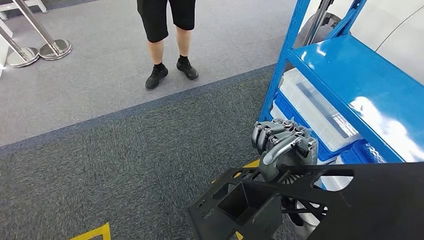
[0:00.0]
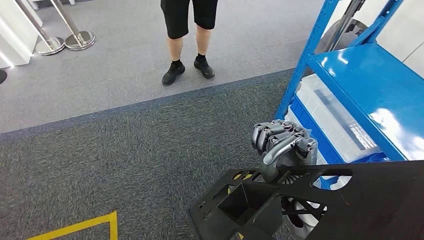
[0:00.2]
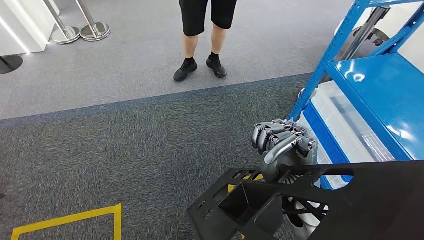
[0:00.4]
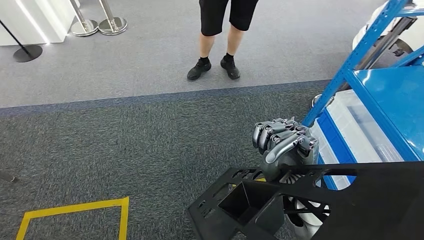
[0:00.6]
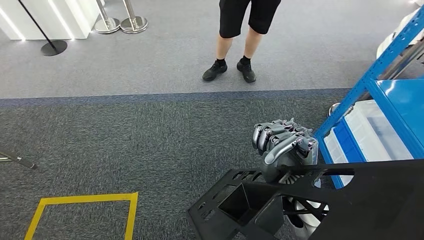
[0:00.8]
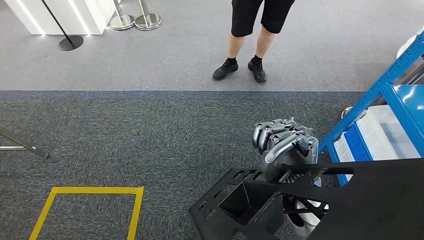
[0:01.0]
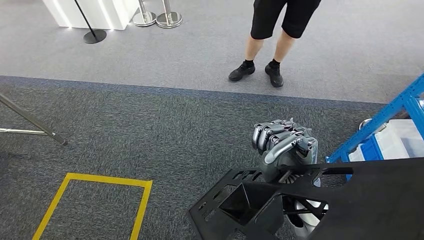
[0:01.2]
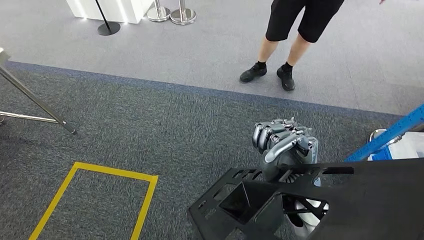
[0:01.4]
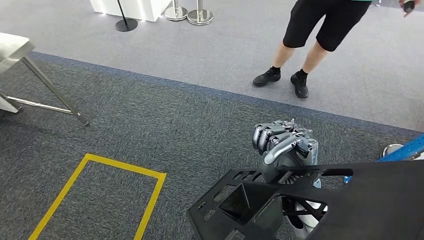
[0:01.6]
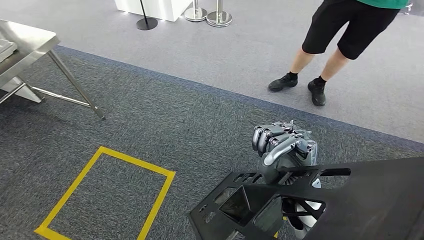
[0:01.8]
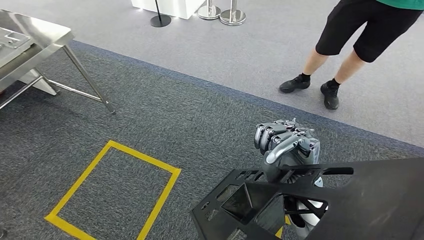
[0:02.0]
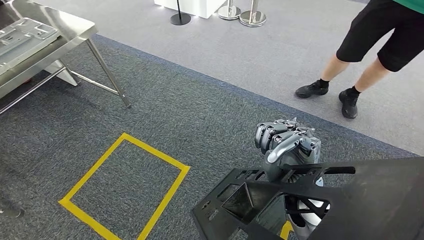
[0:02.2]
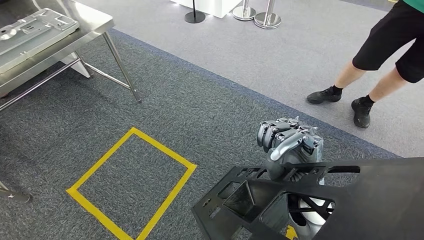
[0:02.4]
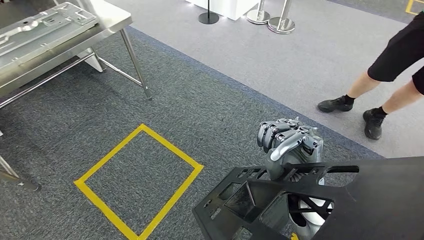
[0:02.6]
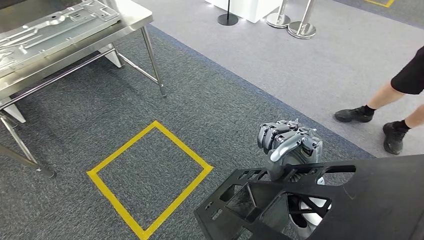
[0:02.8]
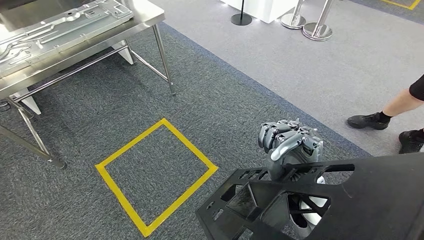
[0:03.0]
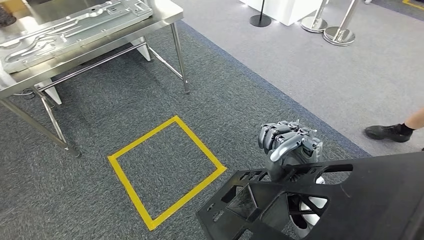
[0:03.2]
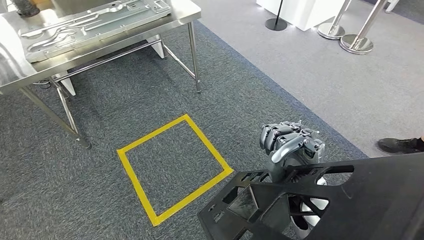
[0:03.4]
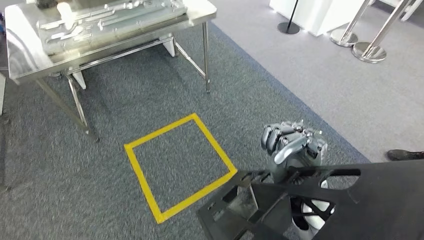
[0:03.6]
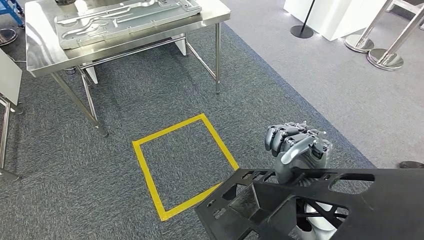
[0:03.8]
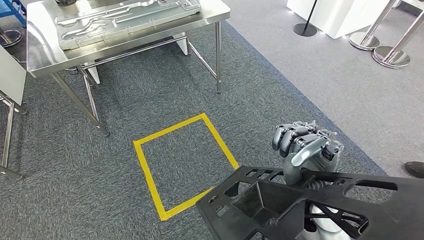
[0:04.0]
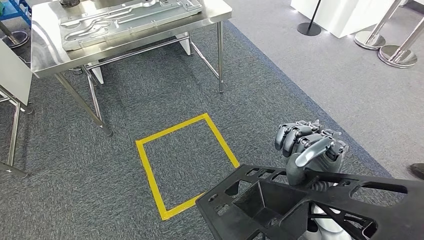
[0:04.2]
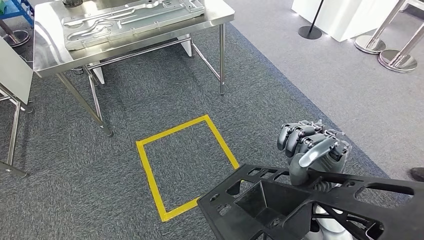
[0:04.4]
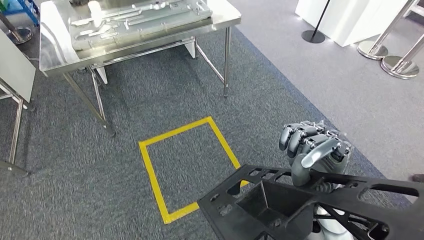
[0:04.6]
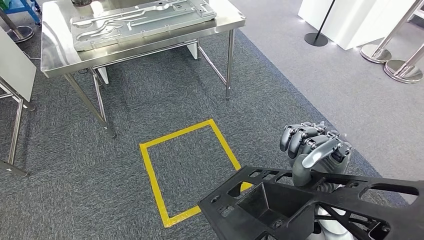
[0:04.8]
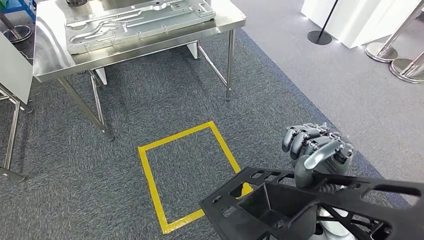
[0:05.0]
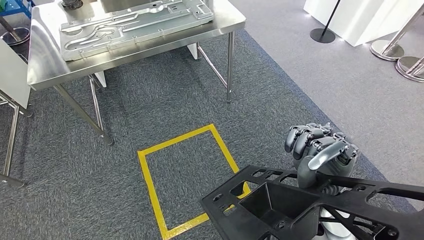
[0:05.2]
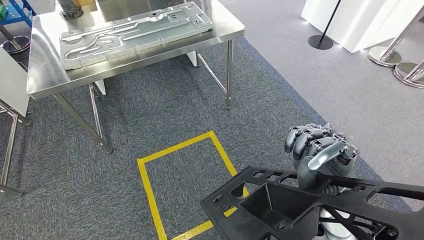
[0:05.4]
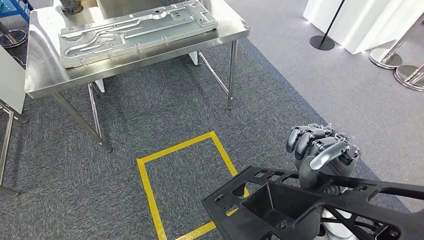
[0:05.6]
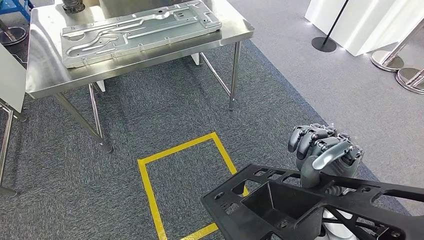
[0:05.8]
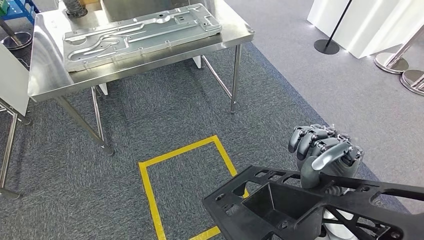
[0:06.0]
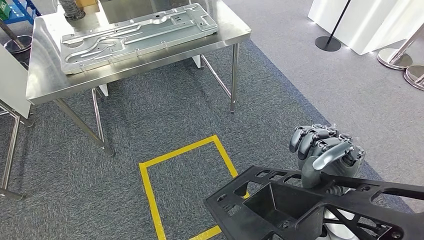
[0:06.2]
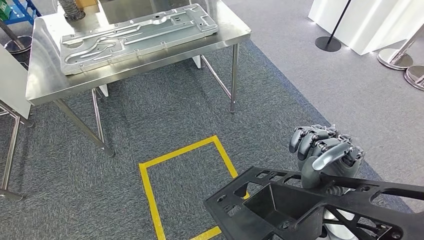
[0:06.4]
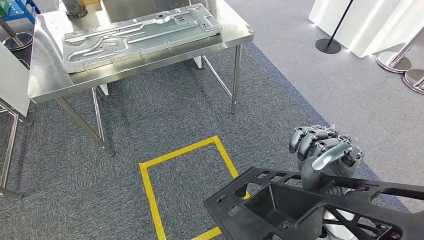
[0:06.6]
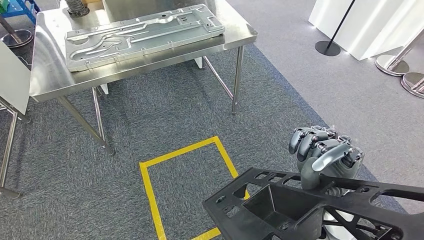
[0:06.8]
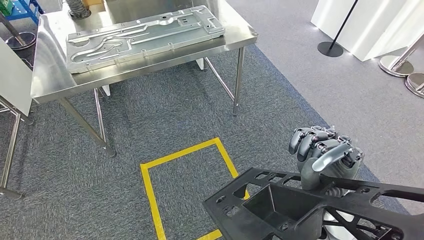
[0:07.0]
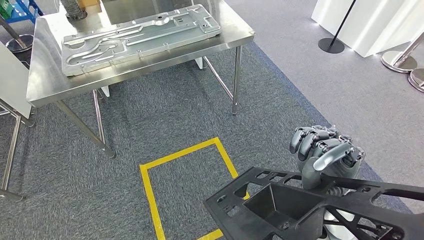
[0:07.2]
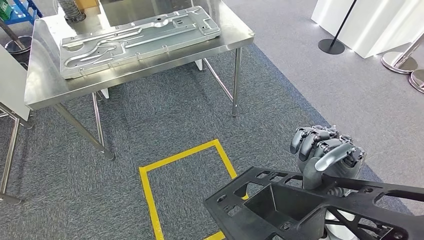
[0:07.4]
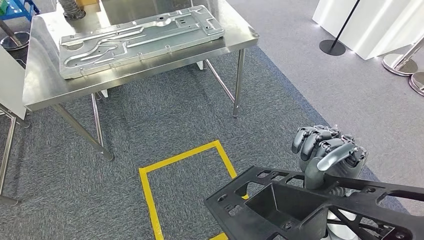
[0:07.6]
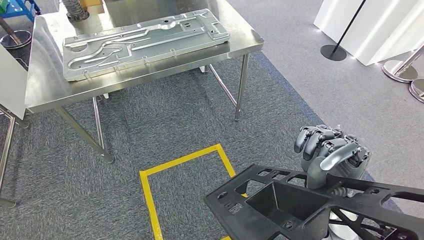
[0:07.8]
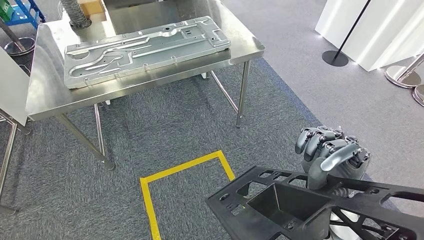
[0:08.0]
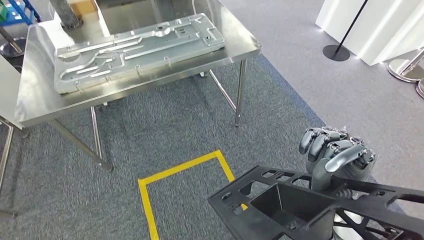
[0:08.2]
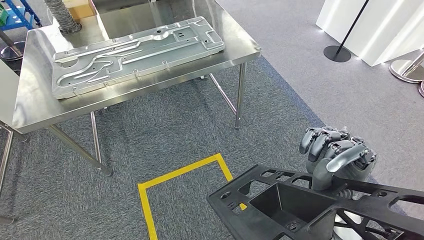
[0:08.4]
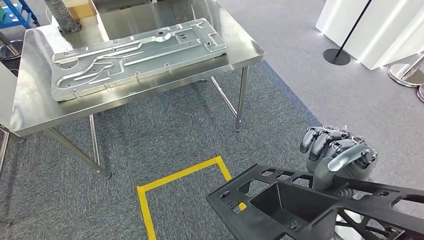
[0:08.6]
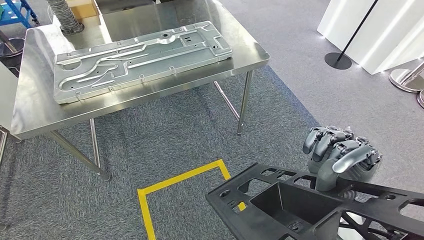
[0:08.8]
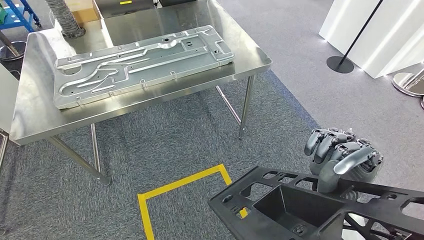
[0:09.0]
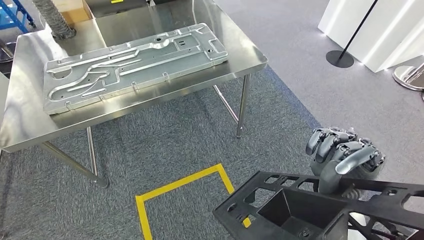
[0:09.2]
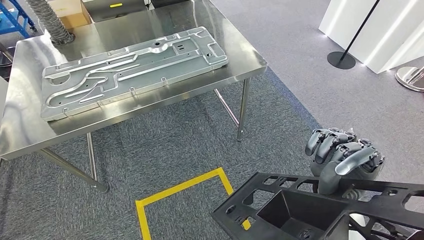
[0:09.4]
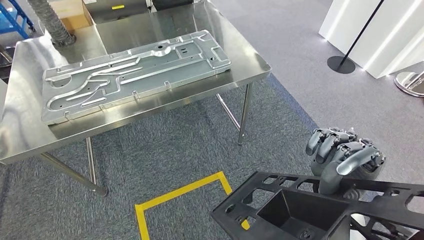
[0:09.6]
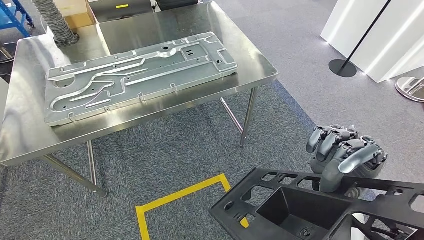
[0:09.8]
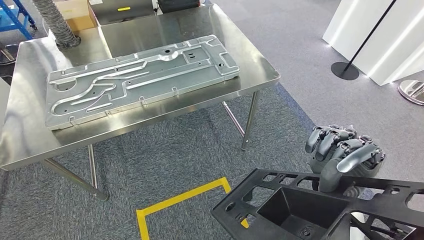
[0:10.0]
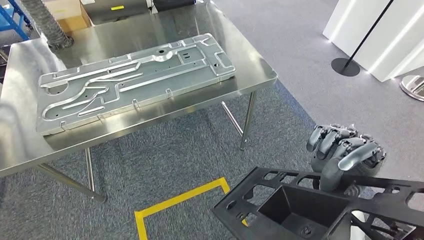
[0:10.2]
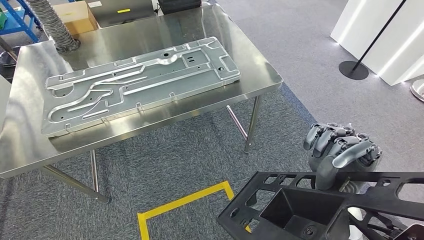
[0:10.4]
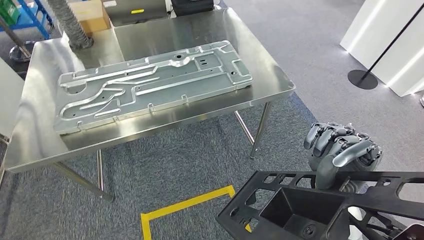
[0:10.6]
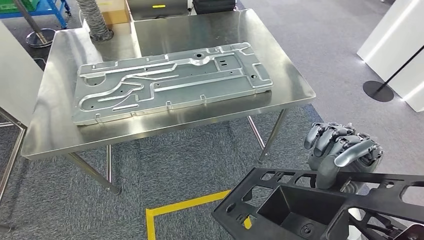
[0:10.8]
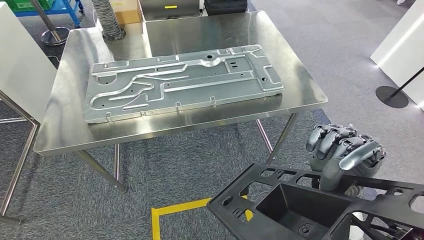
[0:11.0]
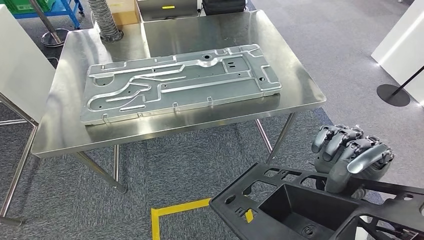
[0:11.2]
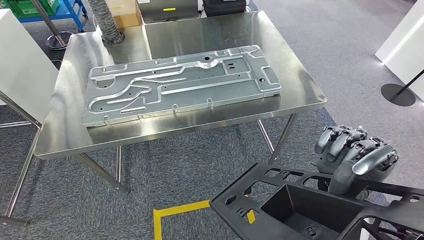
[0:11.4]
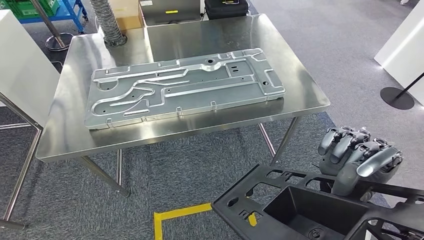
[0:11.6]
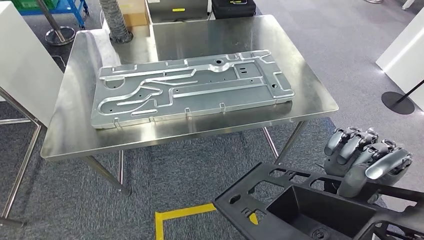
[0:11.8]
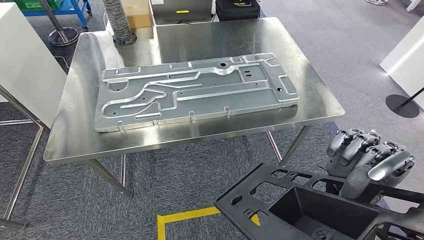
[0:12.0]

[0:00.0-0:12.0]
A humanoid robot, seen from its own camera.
Step, 0:00.0 to 0:11.2: Move the large parts to the workbench.
0:06.0 to 0:07.6: Both hands stay about where they are.

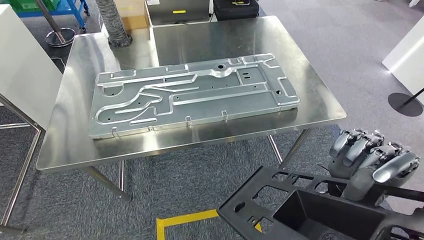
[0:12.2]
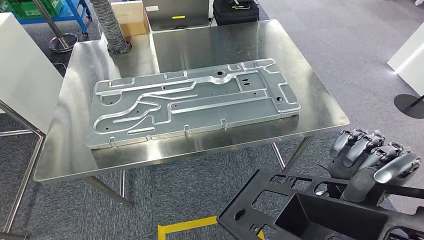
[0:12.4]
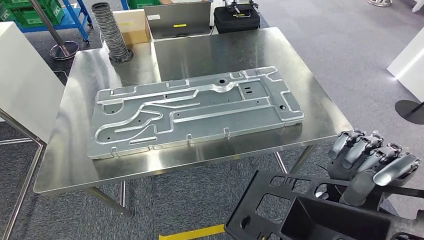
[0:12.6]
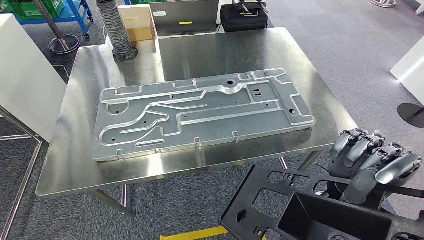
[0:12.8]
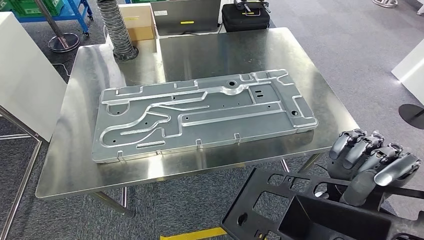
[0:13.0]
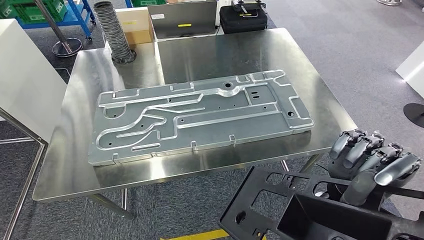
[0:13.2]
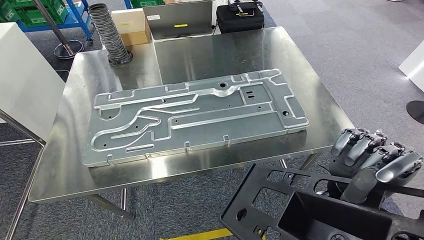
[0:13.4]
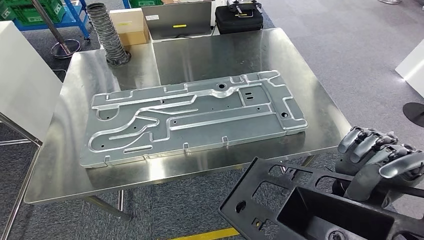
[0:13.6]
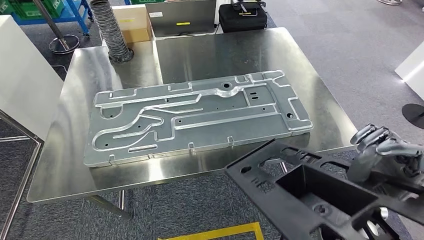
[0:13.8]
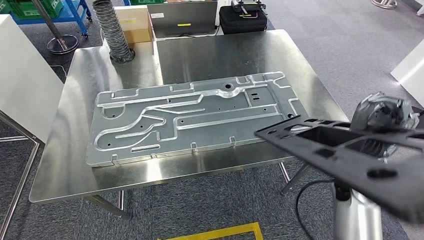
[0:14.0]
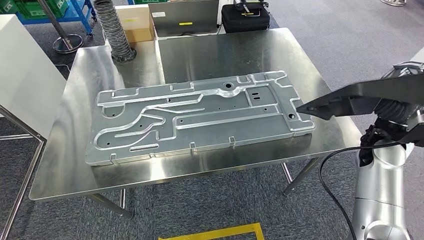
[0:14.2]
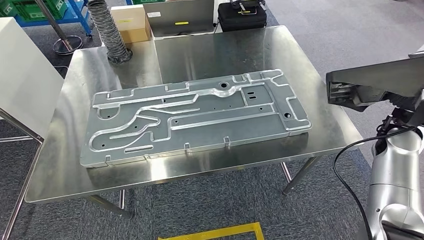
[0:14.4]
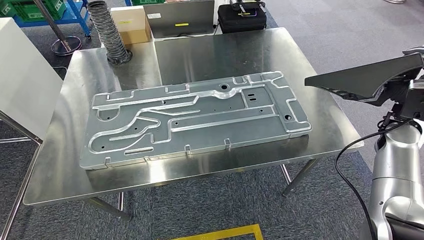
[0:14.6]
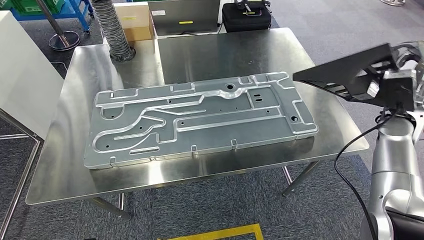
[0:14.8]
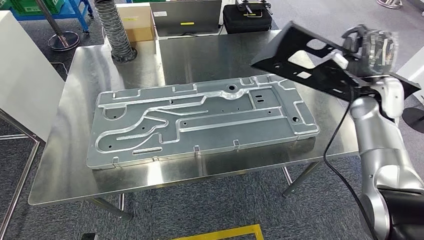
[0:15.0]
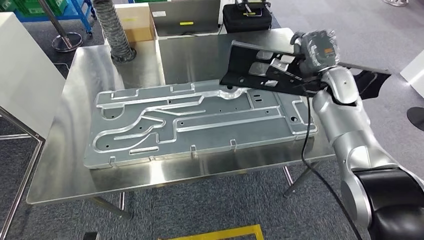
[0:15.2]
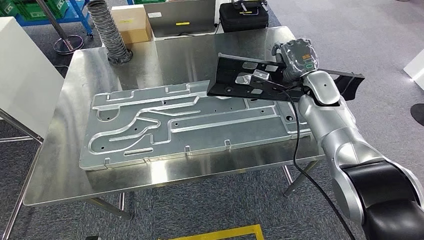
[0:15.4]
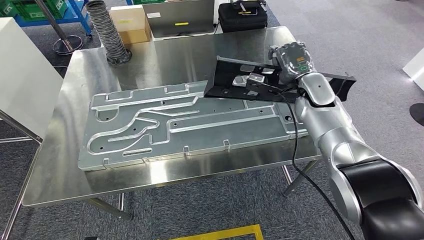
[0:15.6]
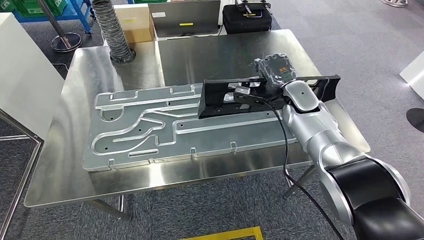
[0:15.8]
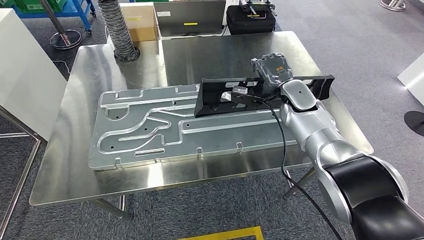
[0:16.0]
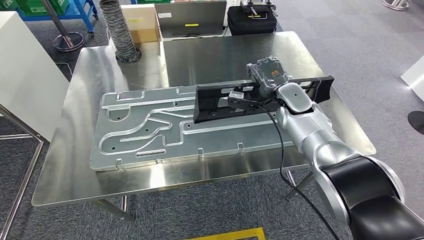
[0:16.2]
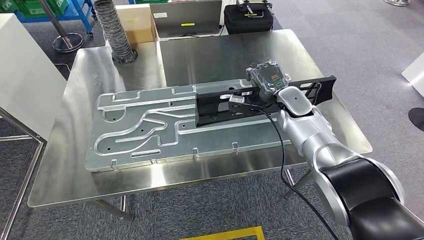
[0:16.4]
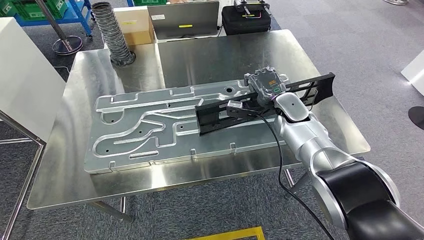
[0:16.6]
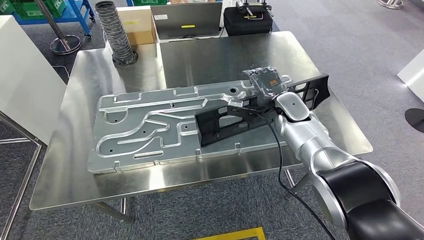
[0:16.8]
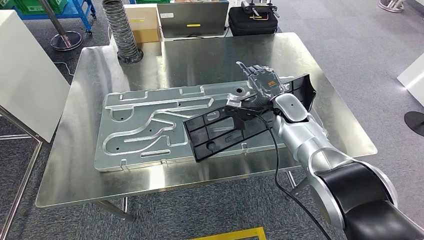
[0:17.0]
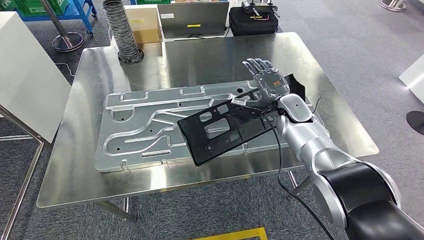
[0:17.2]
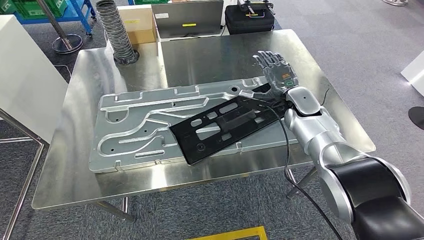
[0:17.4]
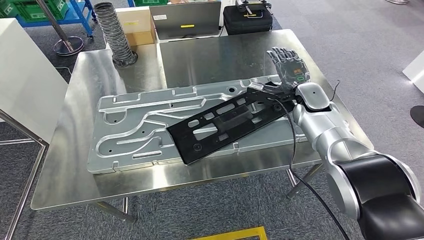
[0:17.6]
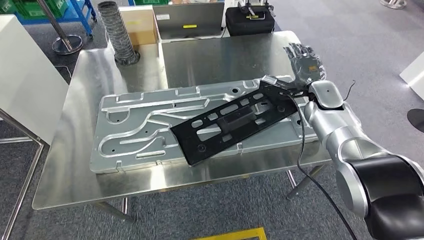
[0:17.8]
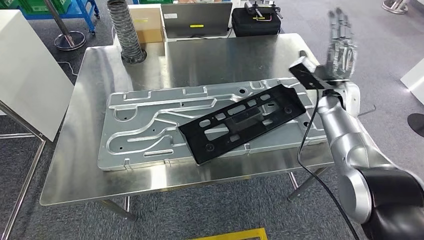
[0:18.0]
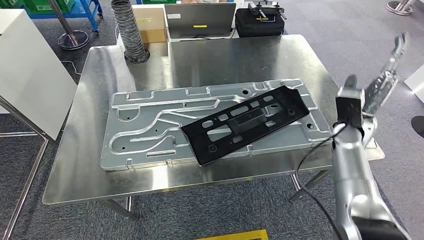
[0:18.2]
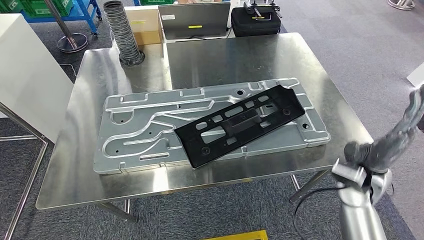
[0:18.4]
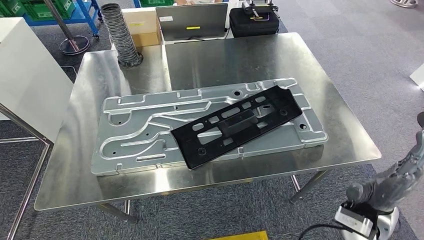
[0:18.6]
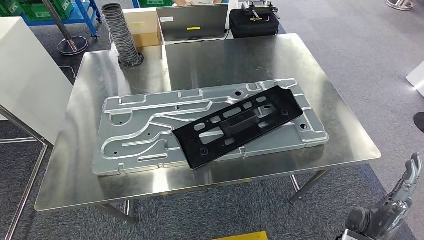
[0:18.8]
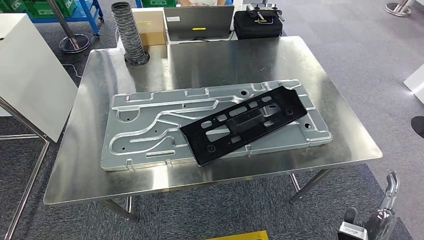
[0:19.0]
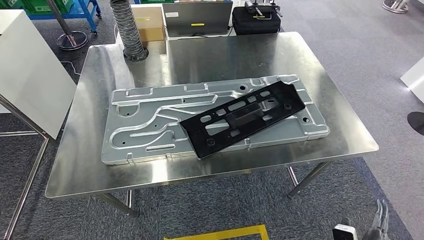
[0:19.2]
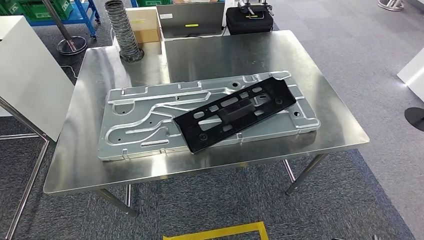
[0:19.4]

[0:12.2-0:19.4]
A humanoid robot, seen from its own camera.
Step, 0:12.8 to 0:18.0: Insert the large parts into the corresponding slots on the workbench.
